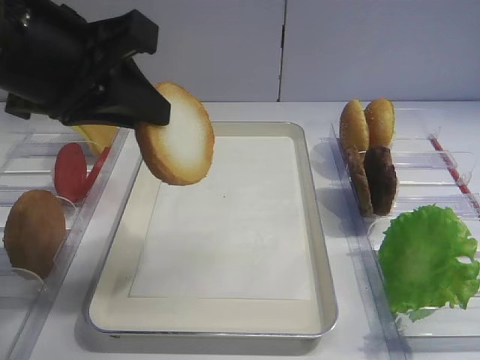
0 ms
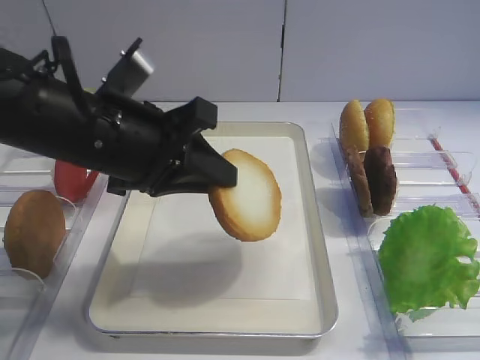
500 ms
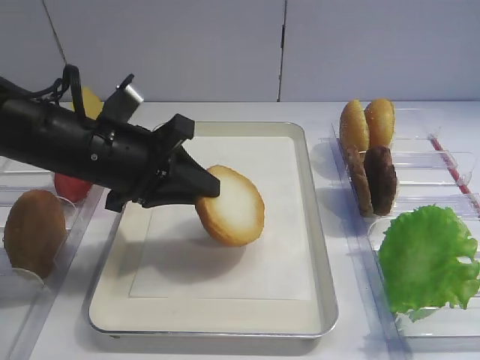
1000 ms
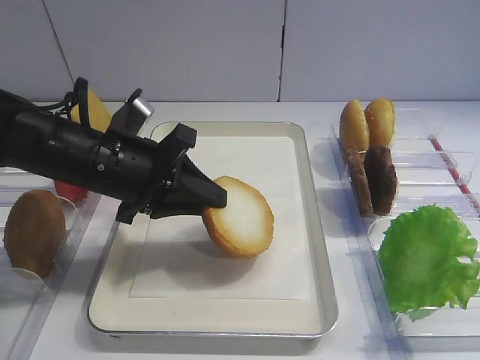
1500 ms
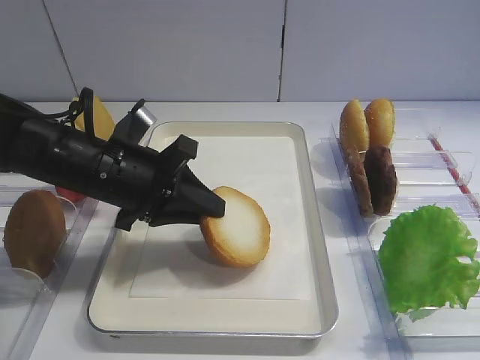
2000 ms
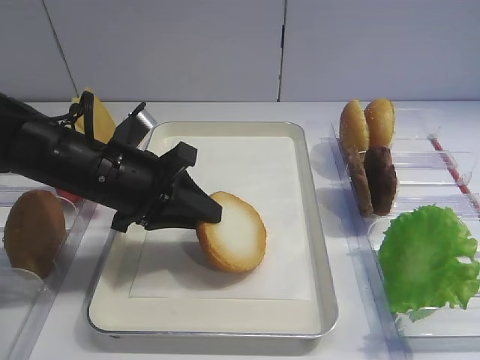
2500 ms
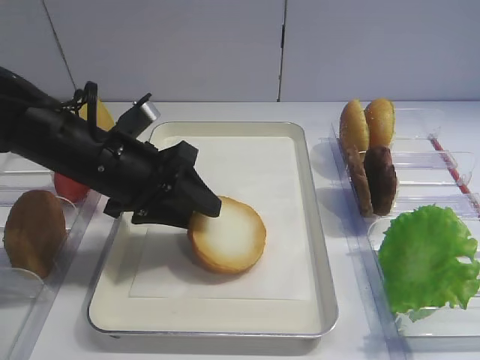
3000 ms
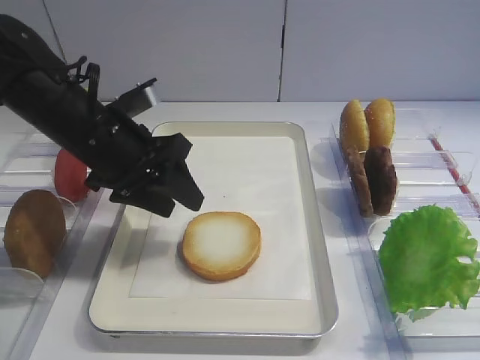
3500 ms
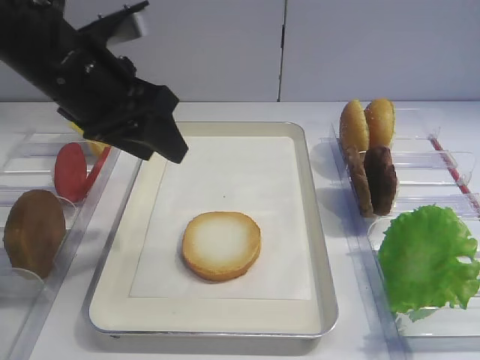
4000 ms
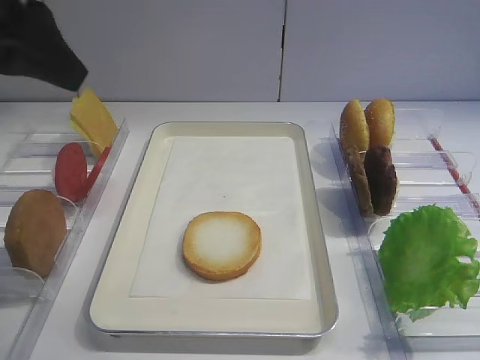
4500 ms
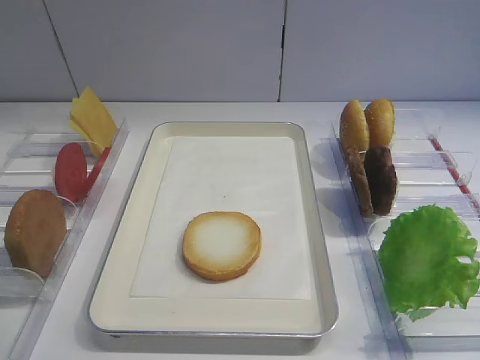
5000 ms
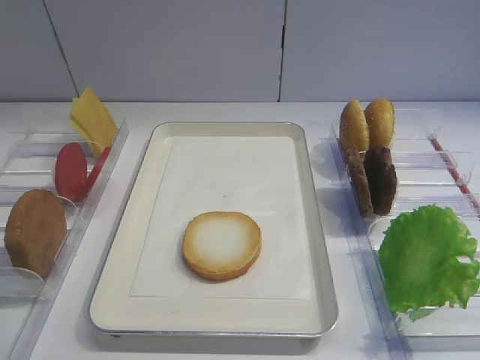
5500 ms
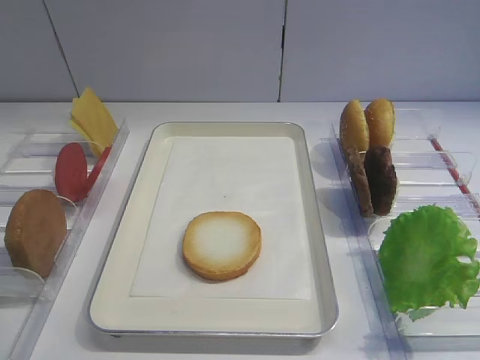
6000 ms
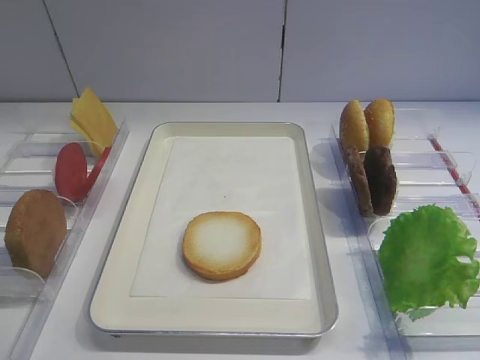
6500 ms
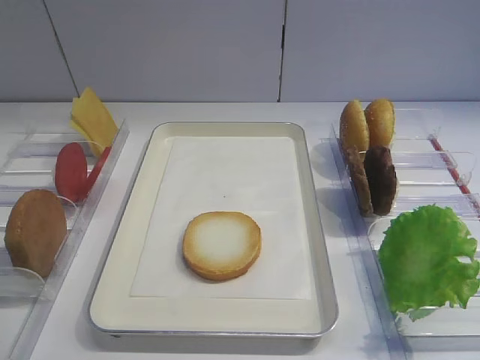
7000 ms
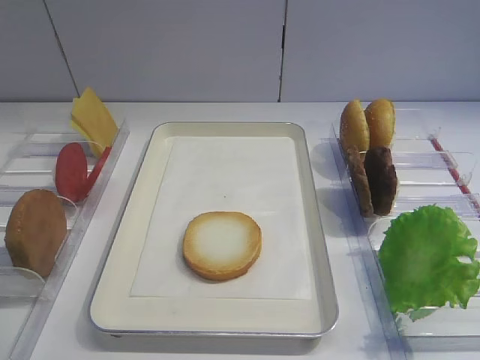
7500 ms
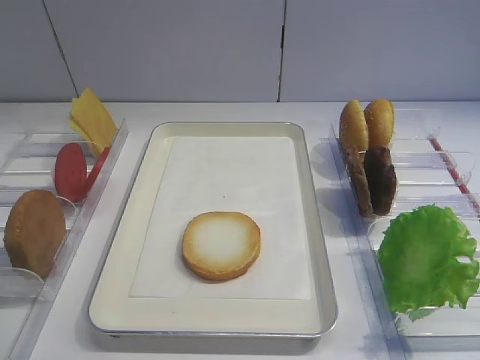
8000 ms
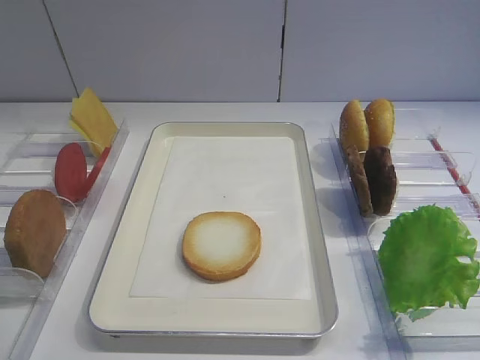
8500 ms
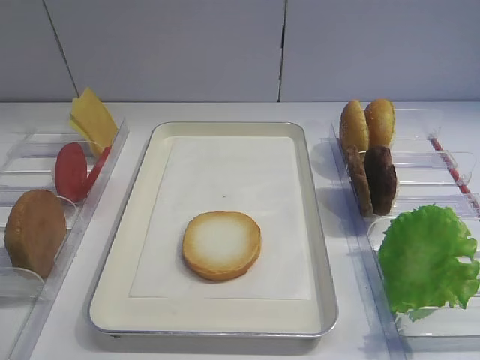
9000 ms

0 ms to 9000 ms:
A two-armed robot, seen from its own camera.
Step, 0 ms to 3500 ms: Place the bread slice on the tray with the left gripper.
0 ms to 2000 ms: The left gripper is displaced downward by approximately 15 cm.
2000 ms to 4500 ms: The left gripper shifts roughly 20 cm upward, and opens up.
4500 ms to 7000 ms: The left gripper travels backward and downward by some 25 cm.

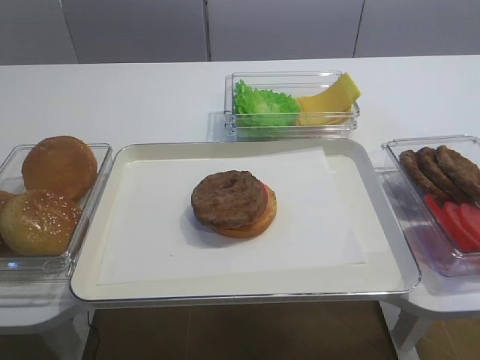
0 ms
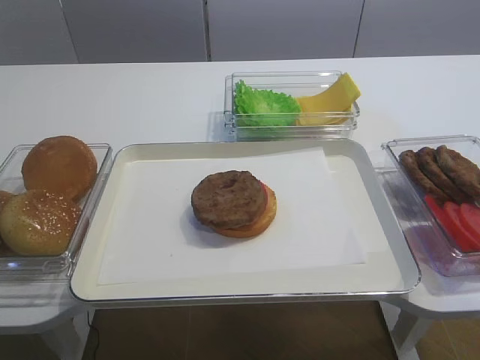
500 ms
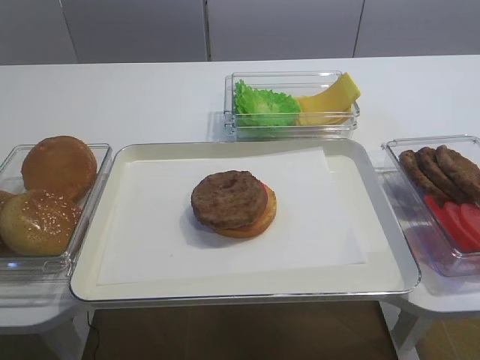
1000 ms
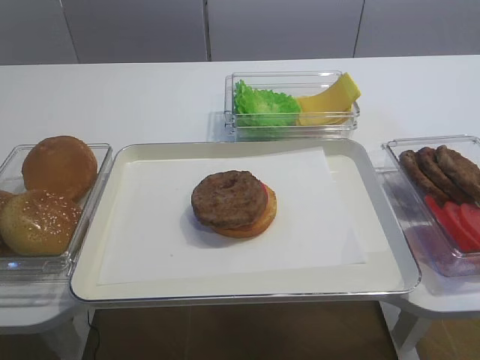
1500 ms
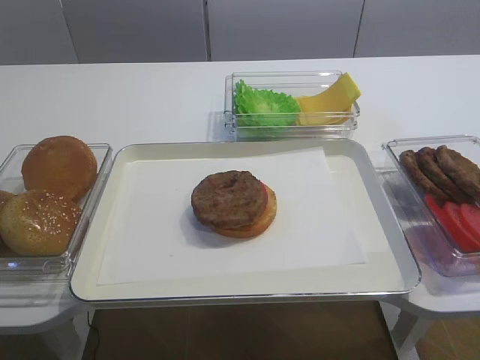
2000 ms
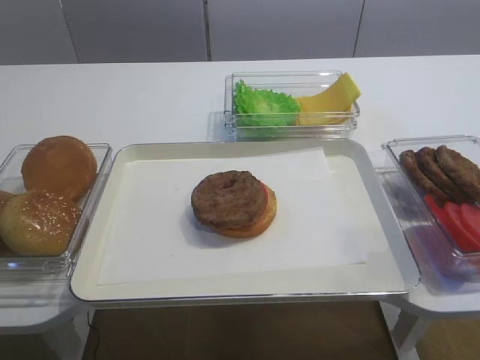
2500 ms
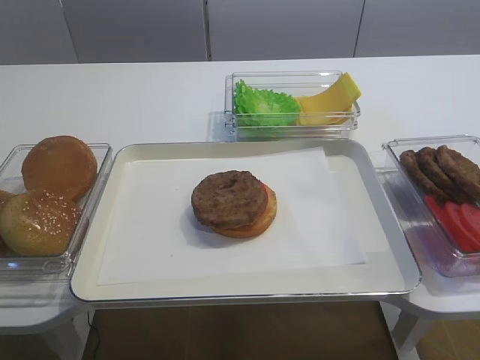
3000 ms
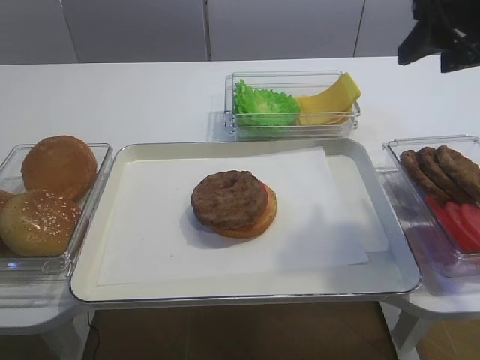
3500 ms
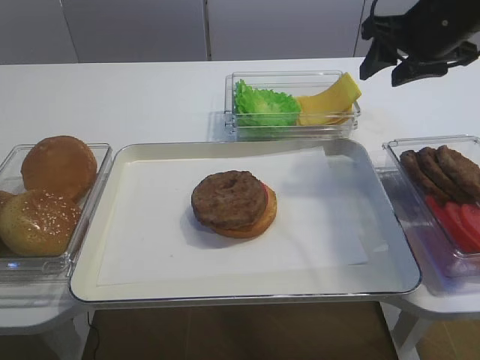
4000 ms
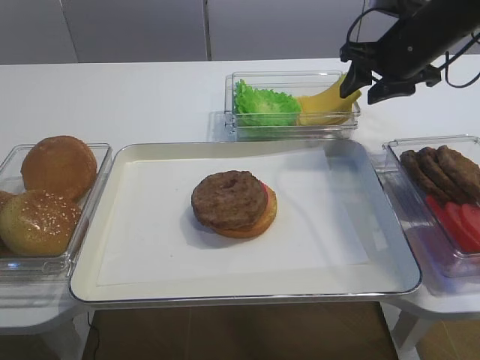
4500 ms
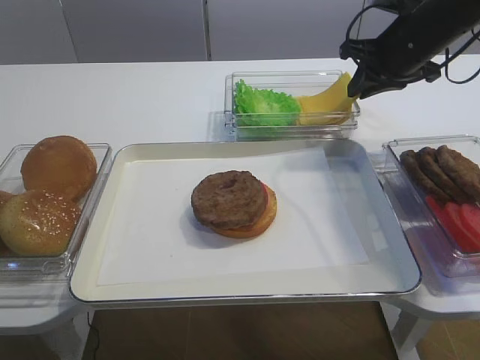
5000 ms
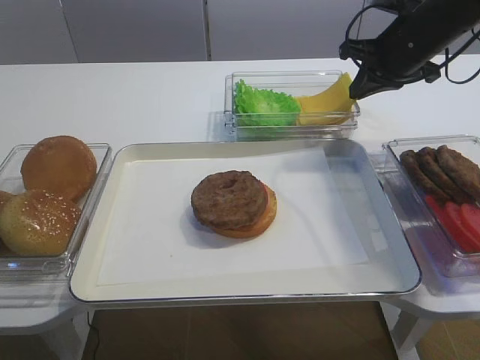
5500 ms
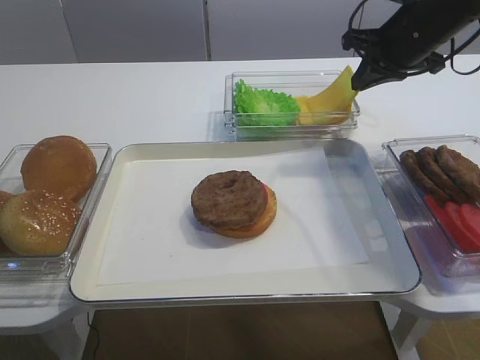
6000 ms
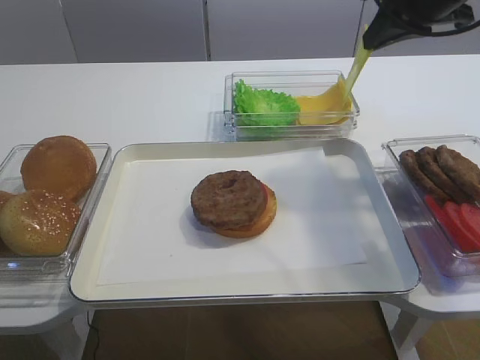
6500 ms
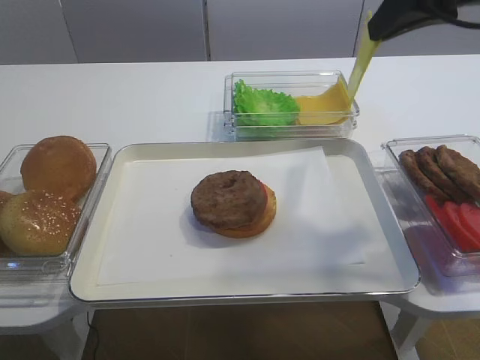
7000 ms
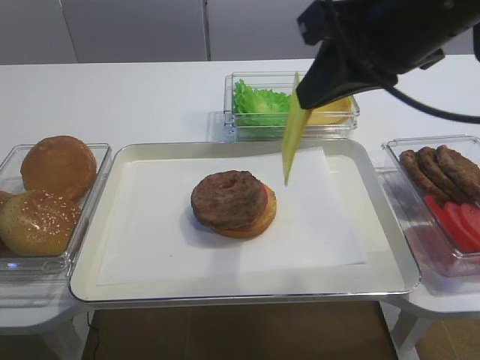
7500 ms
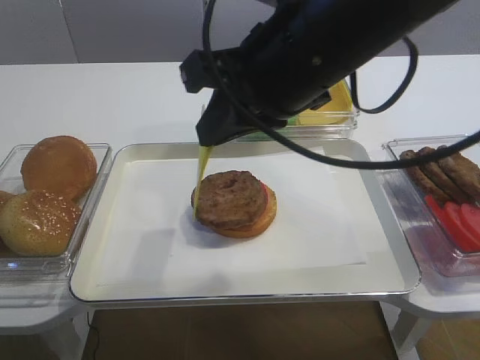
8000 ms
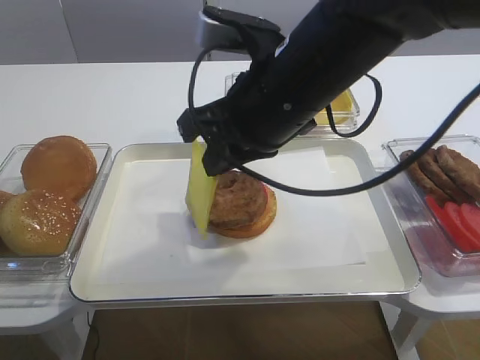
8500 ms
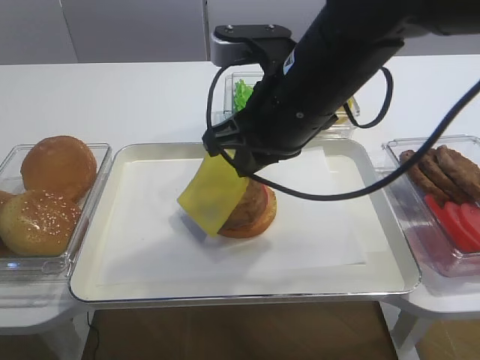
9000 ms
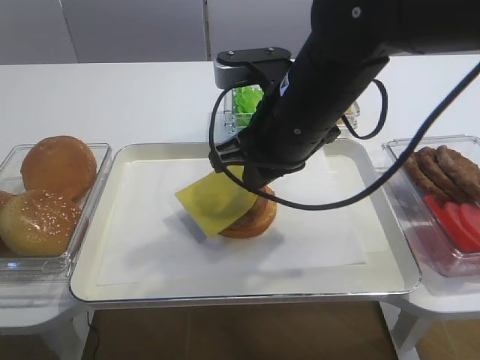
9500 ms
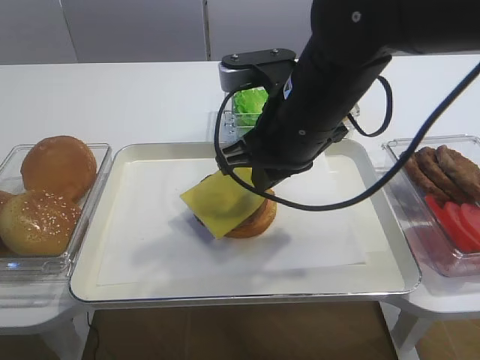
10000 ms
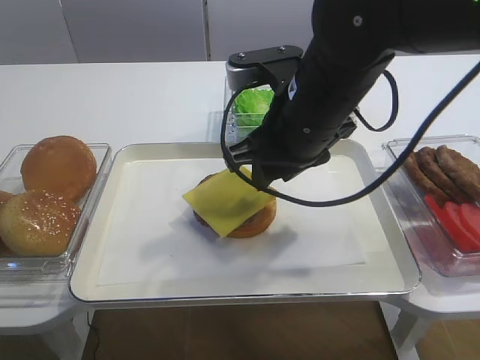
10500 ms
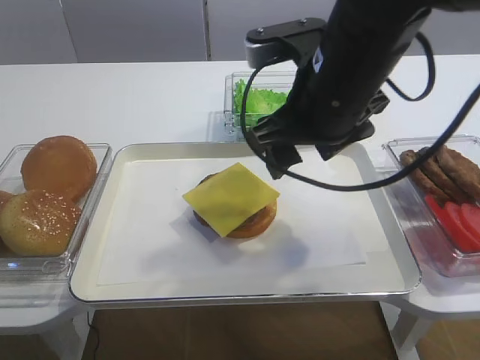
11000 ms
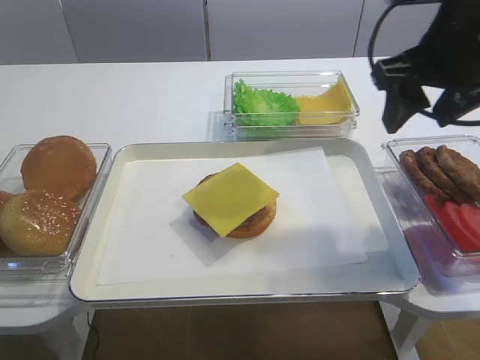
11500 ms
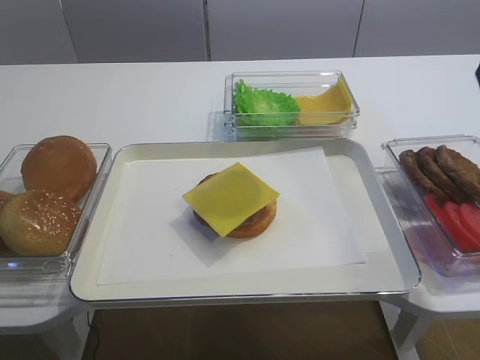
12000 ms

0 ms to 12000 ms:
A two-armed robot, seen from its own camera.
Step, 0 ms to 6000 ms: Pick up the cheese slice with the right gripper.
Step, 6500 ms to 11000 ms: Place the cheese slice on the cutlet with the right gripper.
2000 ms to 4000 ms: The right gripper travels forward by about 40 cm.
4000 ms to 6000 ms: The right gripper closes up.
6000 ms to 8000 ms: The right gripper is displaced backward and to the left by roughly 25 cm.
8000 ms to 10000 ms: The right gripper travels downward by roughly 10 cm.
10000 ms to 12000 ms: The right gripper shifts about 20 cm to the right and upward, and opens.

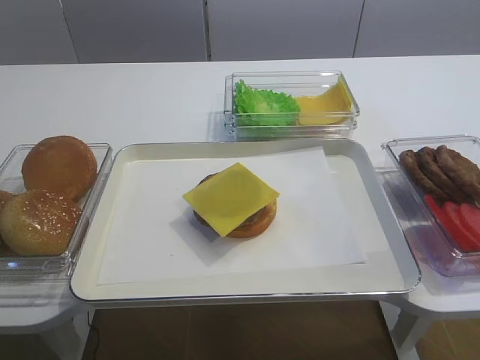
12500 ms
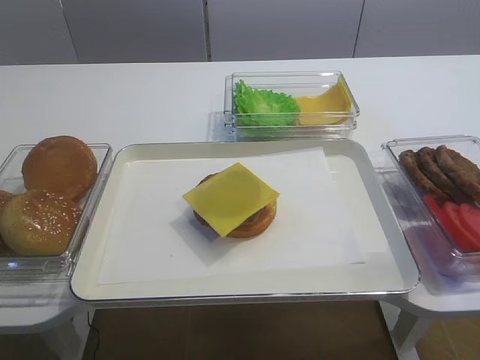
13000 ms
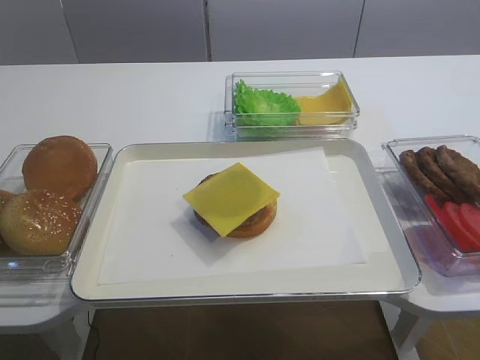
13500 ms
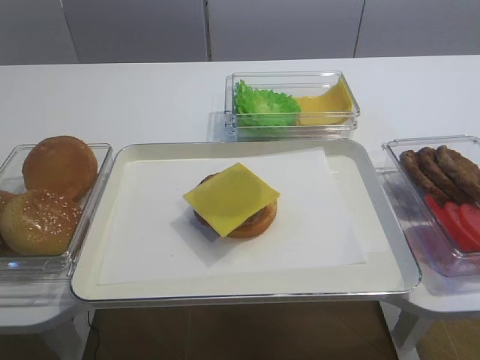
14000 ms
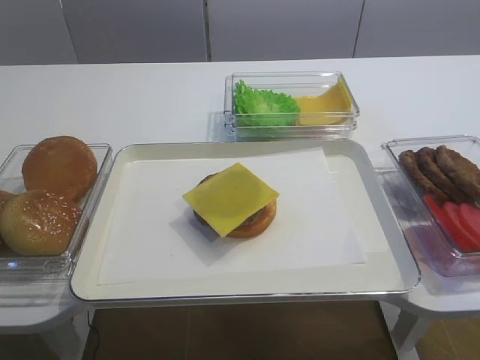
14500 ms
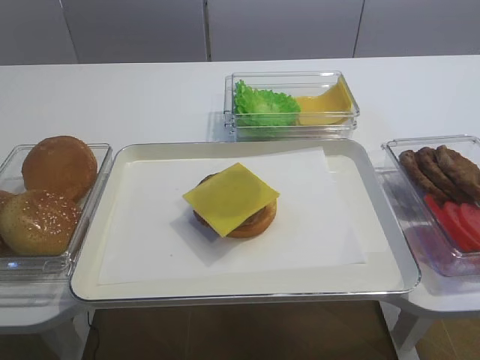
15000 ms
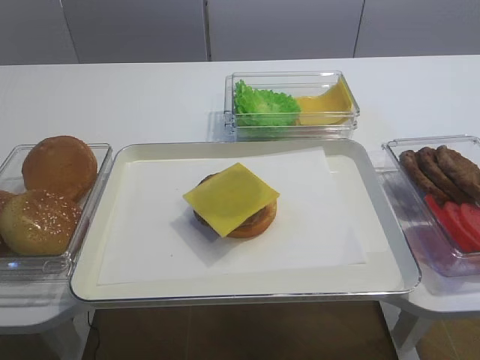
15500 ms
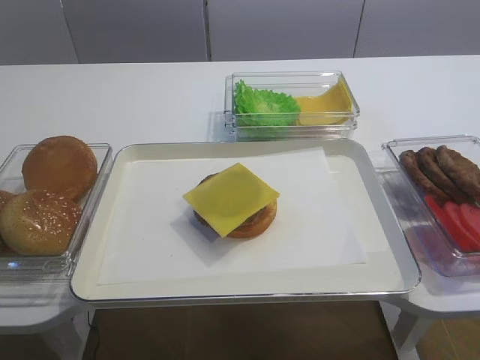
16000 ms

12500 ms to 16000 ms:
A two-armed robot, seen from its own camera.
14500 ms to 16000 ms: The two grippers keep their place.

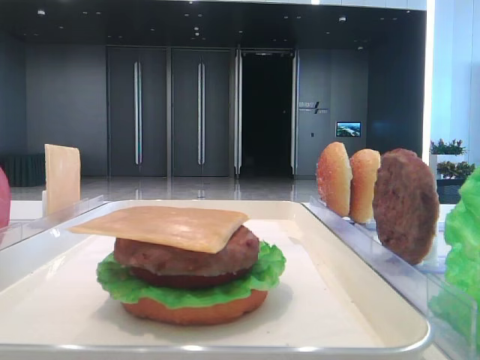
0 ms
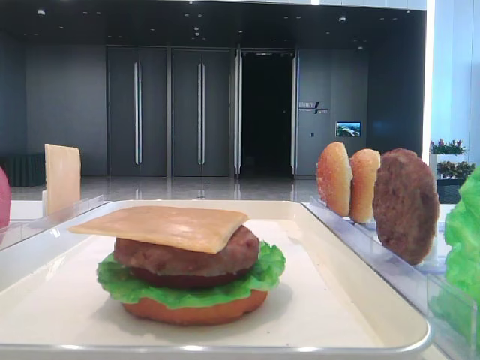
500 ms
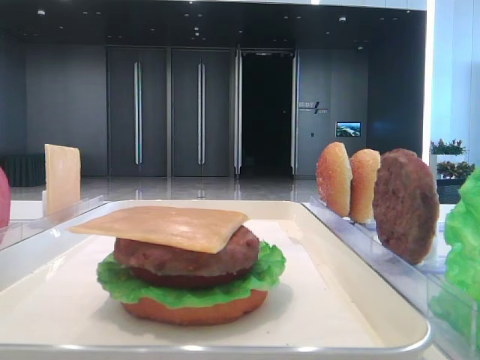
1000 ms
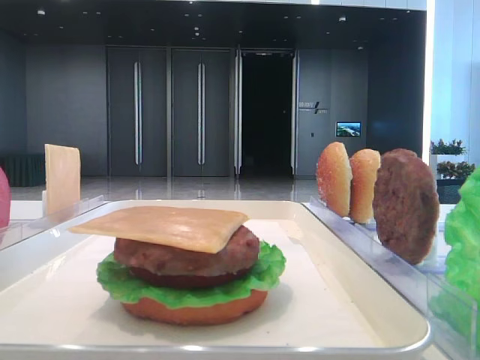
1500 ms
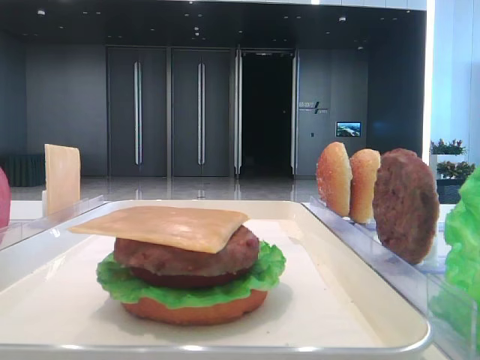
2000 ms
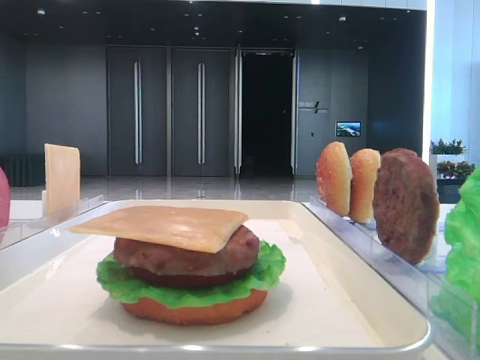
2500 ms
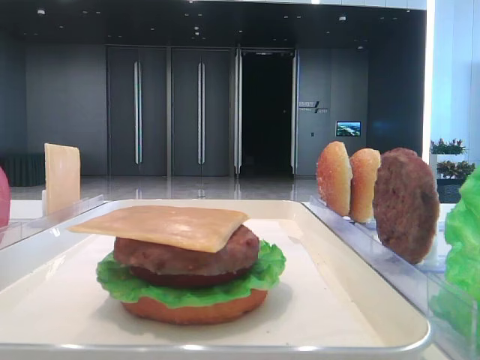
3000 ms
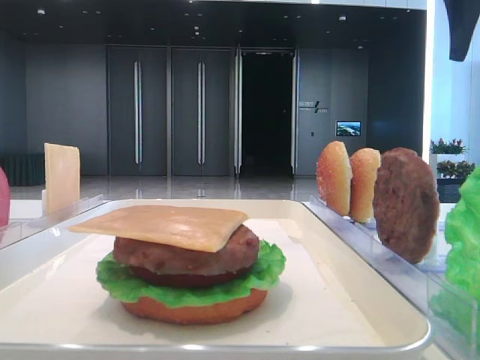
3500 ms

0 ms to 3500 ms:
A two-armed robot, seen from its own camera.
2000 ms to 3500 ms: The right gripper travels forward by approximately 35 cm.
